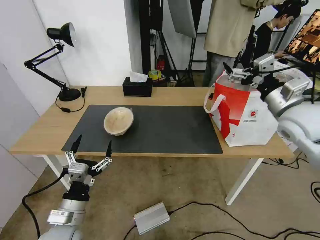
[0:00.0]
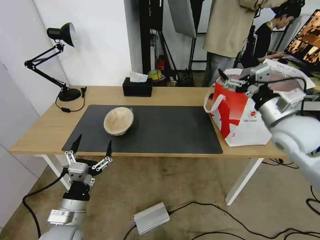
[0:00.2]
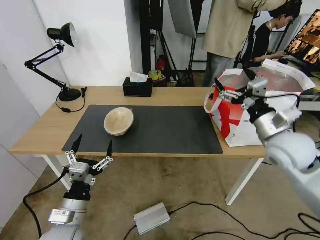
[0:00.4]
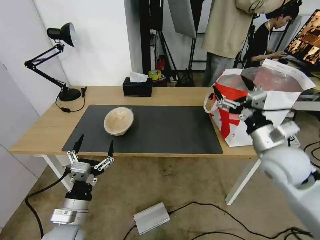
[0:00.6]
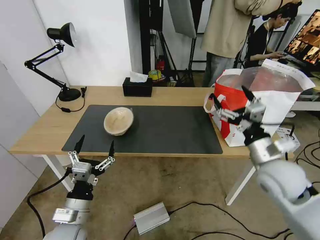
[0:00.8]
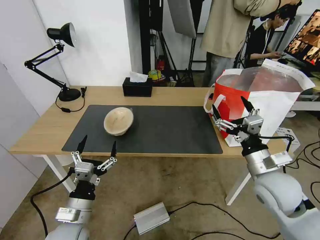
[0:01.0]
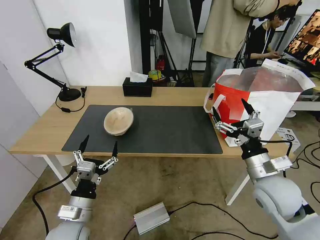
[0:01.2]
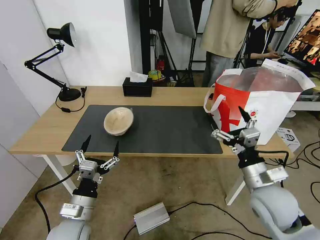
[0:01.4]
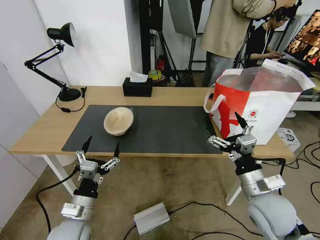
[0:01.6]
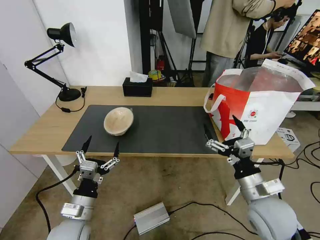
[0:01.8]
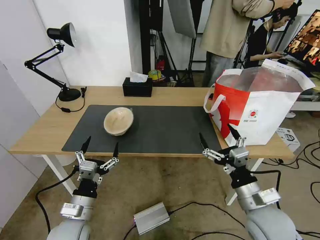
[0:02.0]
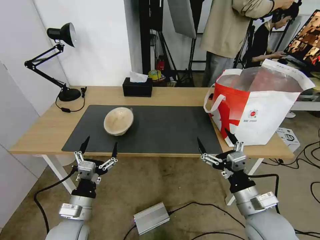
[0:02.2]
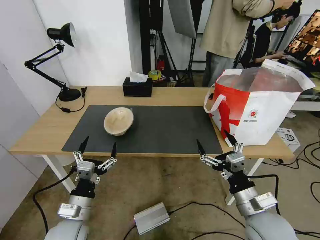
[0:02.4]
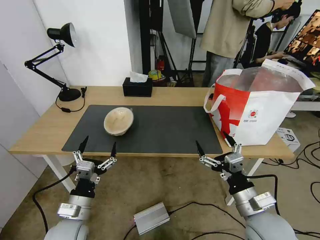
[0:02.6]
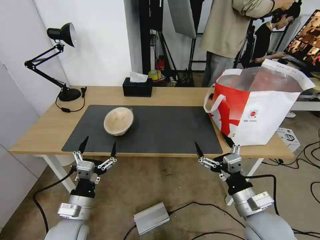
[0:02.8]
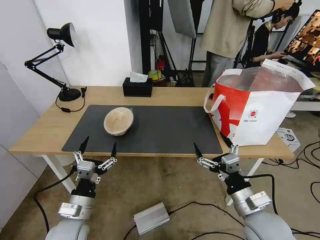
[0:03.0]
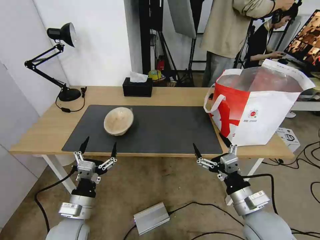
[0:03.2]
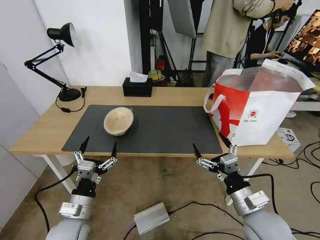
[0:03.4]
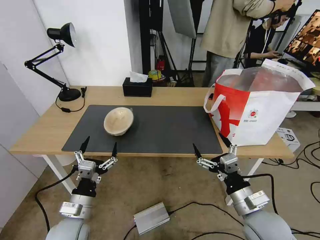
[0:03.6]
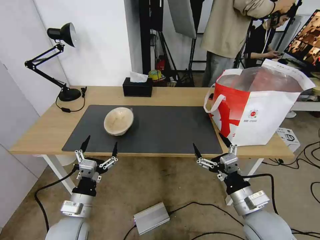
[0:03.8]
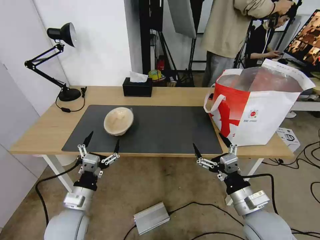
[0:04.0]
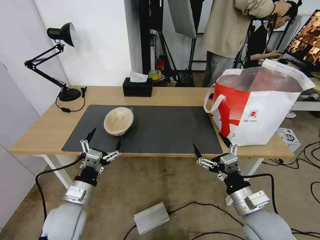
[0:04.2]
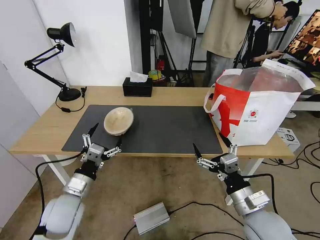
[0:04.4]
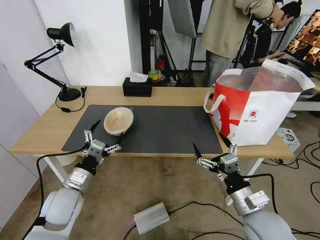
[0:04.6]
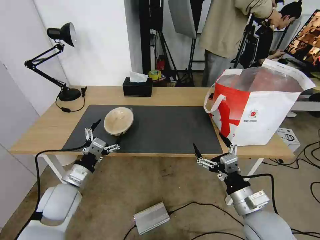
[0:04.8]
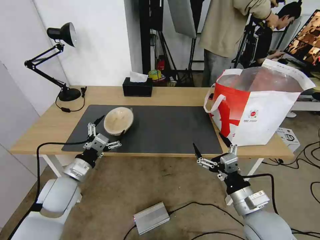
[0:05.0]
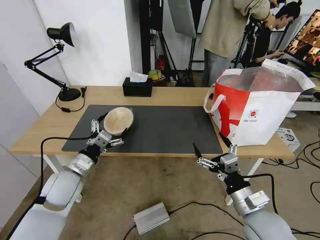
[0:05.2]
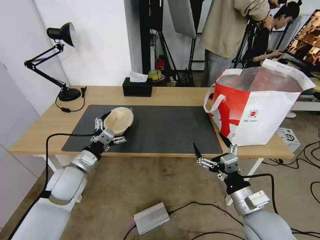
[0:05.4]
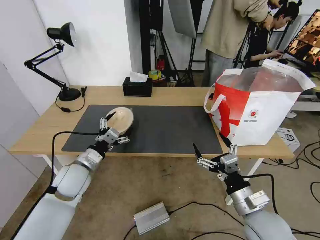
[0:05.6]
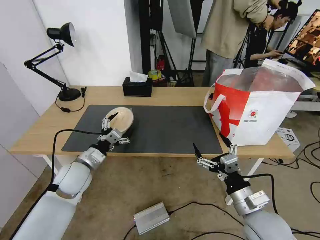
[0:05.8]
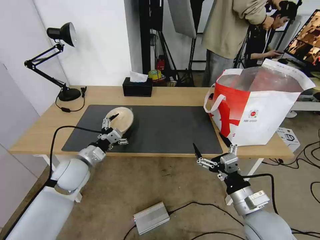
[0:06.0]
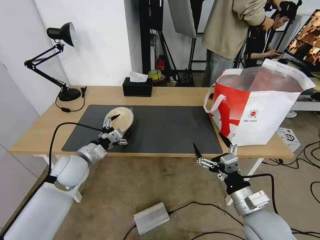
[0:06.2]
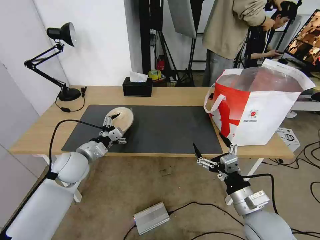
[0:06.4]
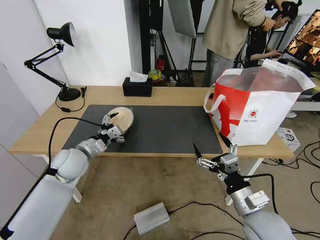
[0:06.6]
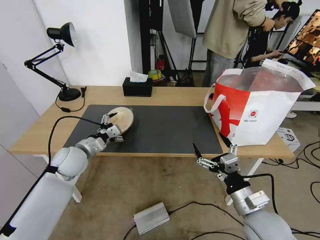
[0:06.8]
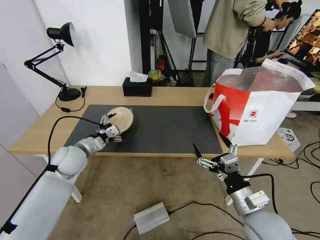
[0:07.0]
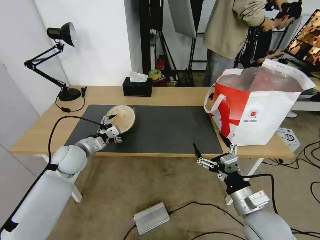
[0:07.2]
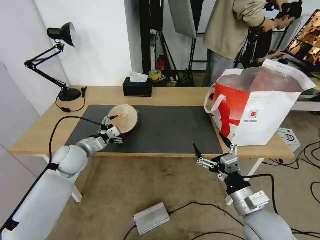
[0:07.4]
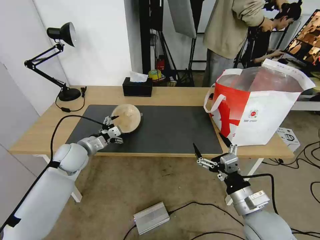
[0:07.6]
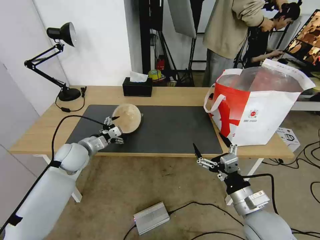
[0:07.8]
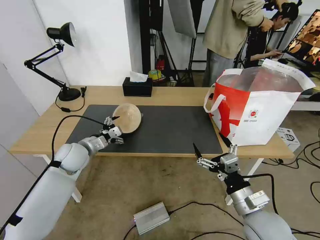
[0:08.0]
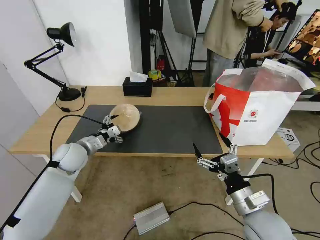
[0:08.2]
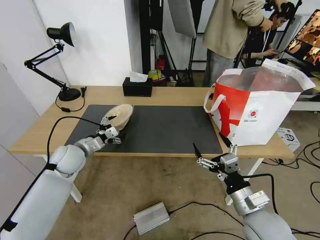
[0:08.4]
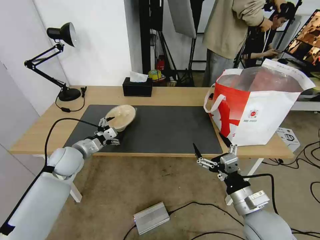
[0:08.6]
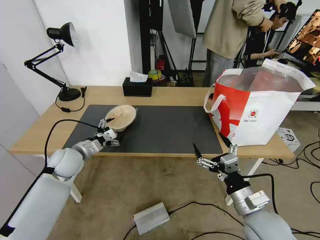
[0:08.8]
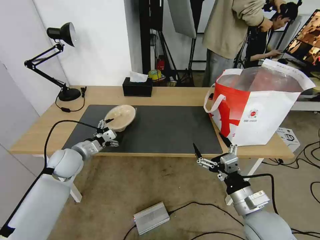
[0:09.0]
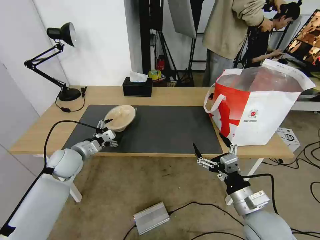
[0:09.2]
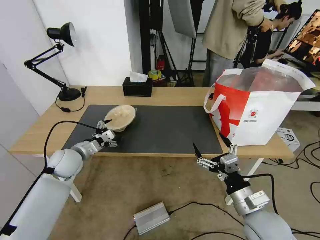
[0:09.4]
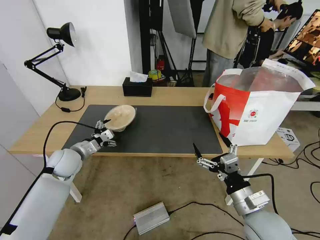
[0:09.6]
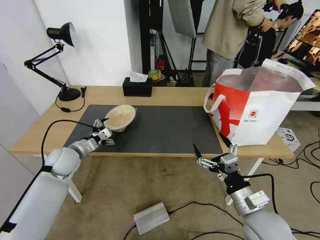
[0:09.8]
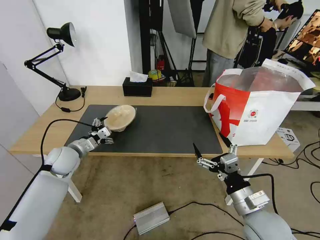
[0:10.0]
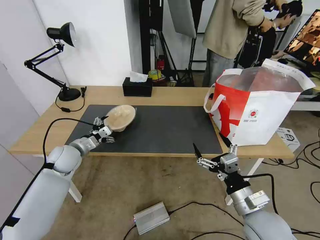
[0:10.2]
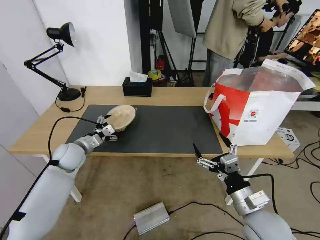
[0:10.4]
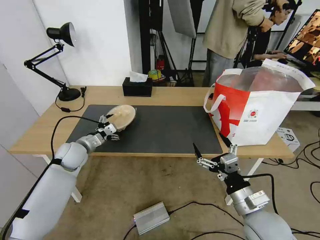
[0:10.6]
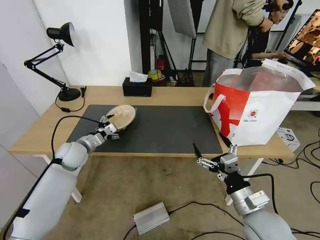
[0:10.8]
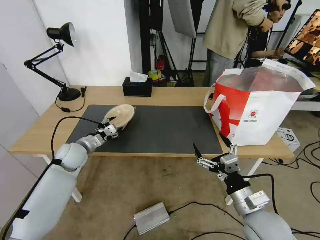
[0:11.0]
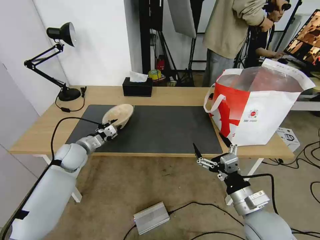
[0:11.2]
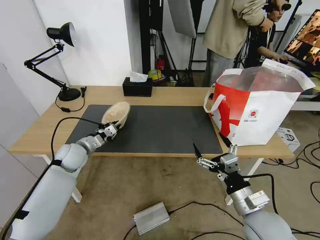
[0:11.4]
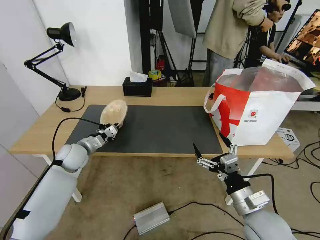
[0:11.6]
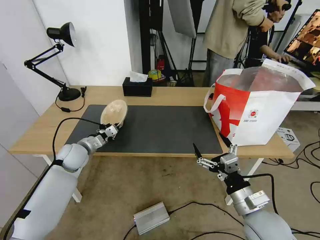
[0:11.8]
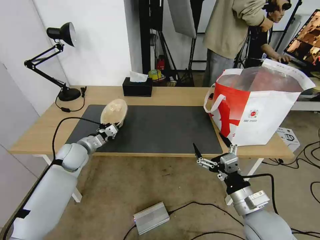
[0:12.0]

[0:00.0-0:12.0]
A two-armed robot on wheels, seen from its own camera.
Task of the whole recording: Pick up the trash from the table and place it into the takeout bag.
0:00.0 to 0:01.6: The right gripper is displaced downward, backward and to the left by some 25 cm.
0:01.6 to 0:03.0: The right gripper shifts by approximately 5 cm.
0:03.0 to 0:04.4: The left gripper heads forward, covering some 5 cm.
0:04.4 to 0:06.0: The left gripper goes some 10 cm forward.
0:06.0 to 0:07.6: The left gripper shifts about 5 cm forward.
0:07.6 to 0:10.4: There are only small adjustments of the grippers.
0:10.4 to 0:12.0: The left gripper closes.

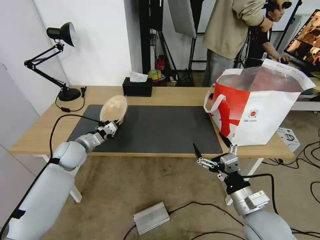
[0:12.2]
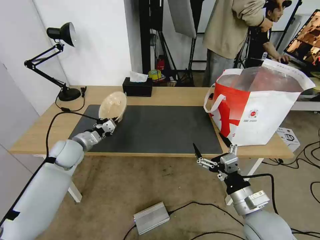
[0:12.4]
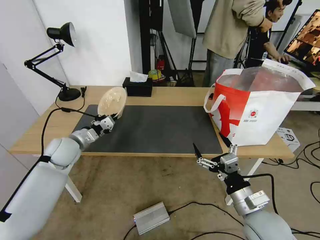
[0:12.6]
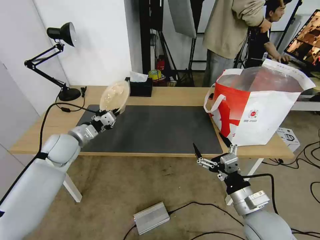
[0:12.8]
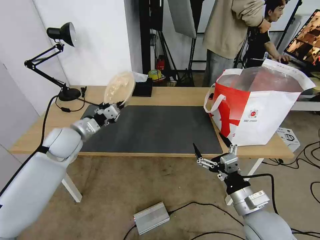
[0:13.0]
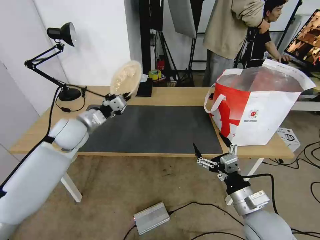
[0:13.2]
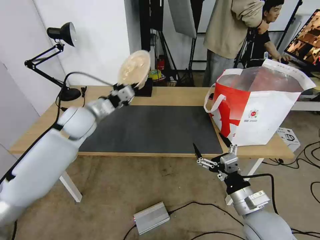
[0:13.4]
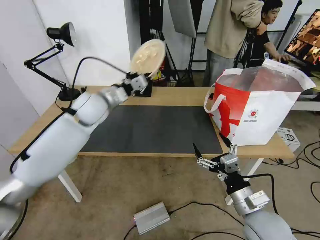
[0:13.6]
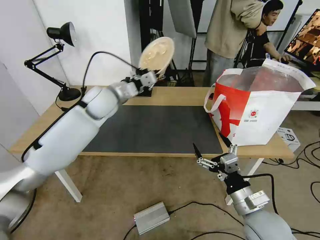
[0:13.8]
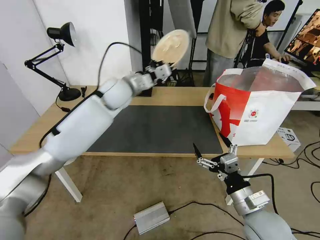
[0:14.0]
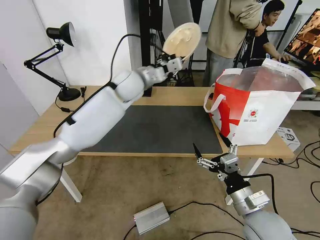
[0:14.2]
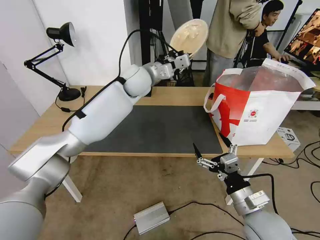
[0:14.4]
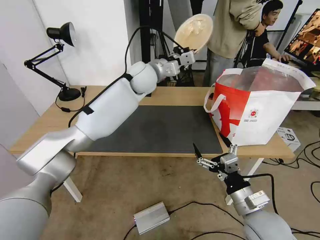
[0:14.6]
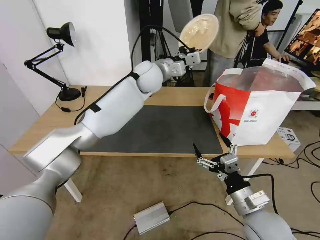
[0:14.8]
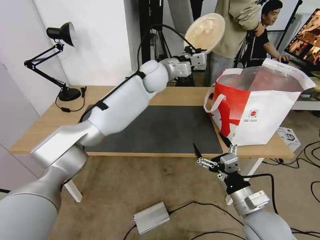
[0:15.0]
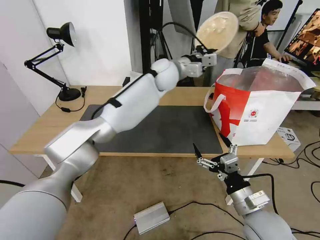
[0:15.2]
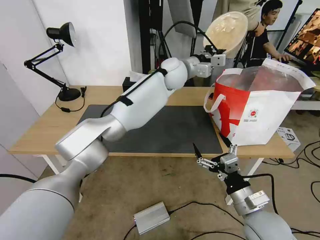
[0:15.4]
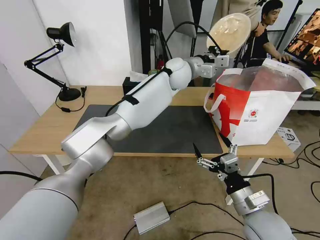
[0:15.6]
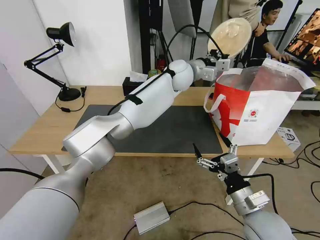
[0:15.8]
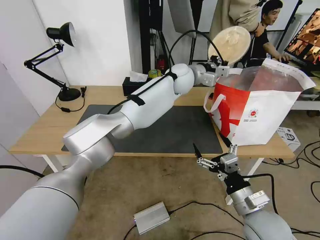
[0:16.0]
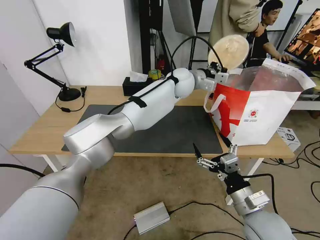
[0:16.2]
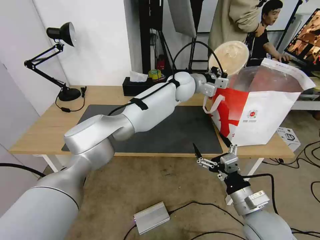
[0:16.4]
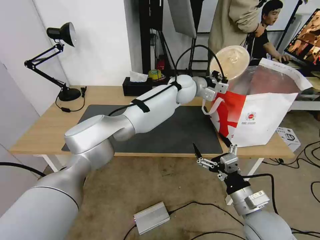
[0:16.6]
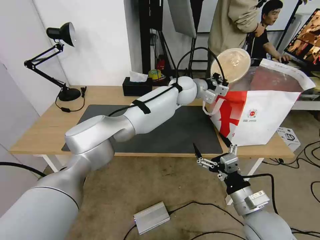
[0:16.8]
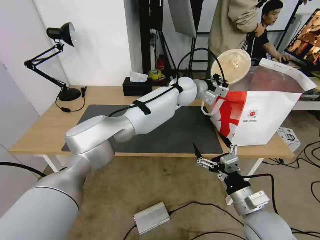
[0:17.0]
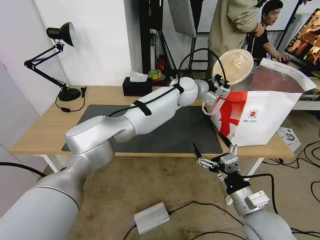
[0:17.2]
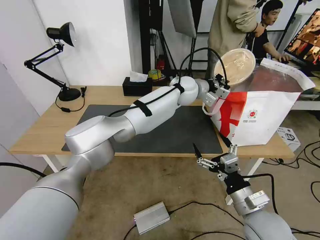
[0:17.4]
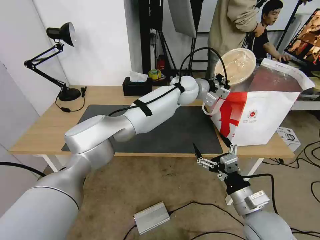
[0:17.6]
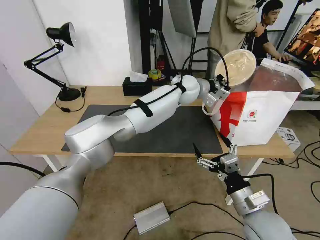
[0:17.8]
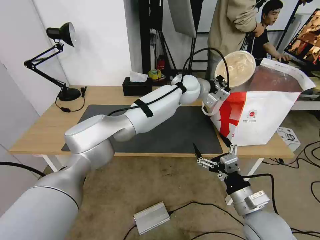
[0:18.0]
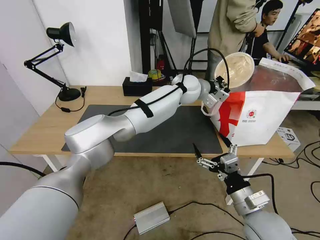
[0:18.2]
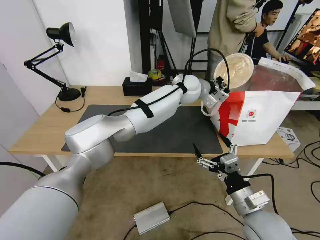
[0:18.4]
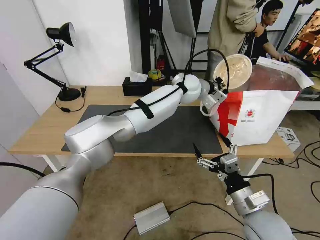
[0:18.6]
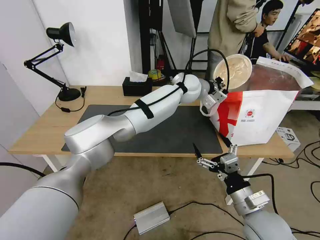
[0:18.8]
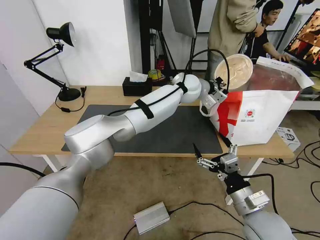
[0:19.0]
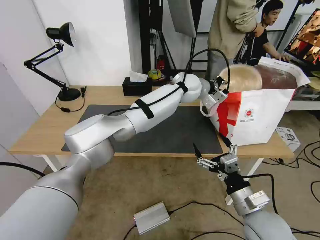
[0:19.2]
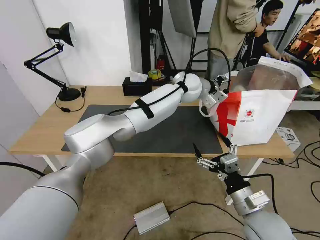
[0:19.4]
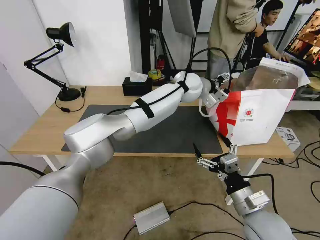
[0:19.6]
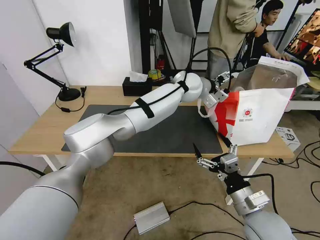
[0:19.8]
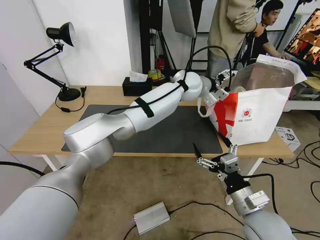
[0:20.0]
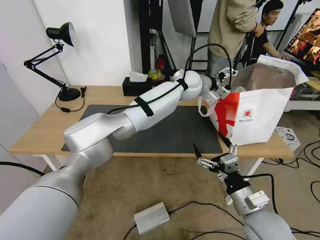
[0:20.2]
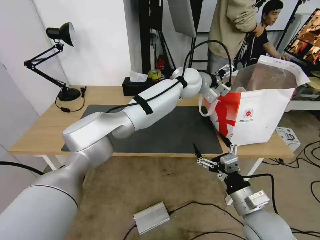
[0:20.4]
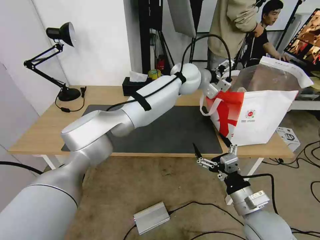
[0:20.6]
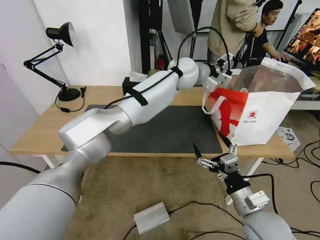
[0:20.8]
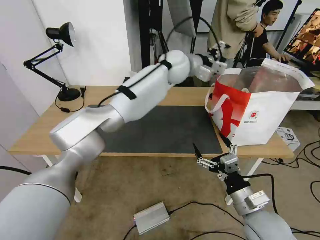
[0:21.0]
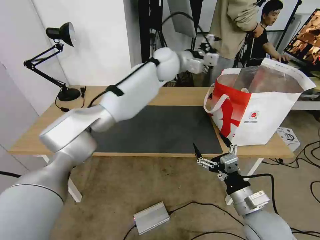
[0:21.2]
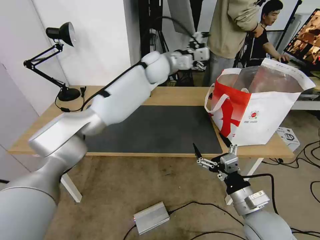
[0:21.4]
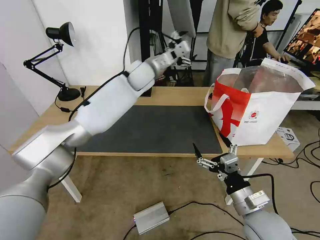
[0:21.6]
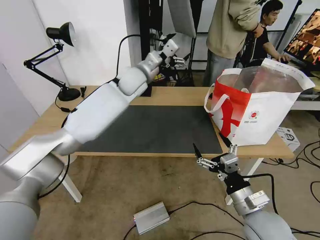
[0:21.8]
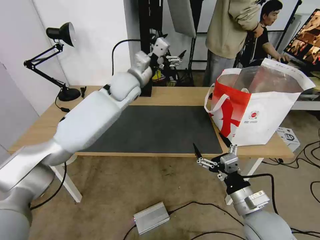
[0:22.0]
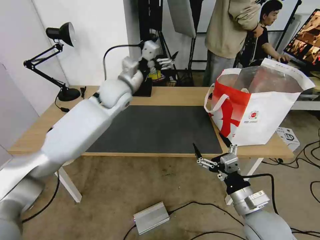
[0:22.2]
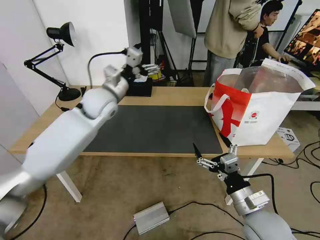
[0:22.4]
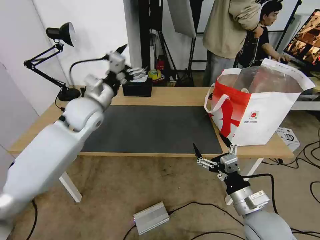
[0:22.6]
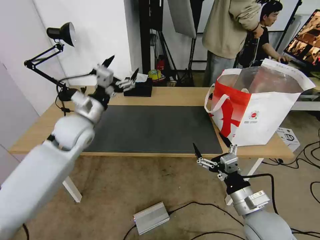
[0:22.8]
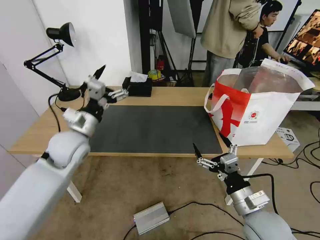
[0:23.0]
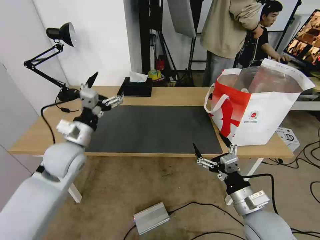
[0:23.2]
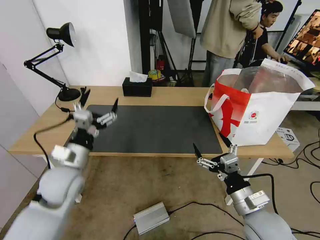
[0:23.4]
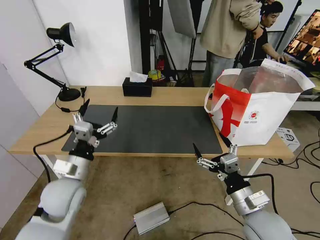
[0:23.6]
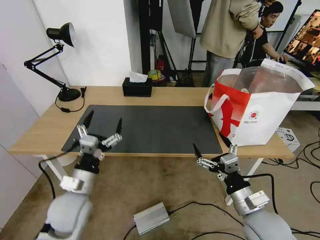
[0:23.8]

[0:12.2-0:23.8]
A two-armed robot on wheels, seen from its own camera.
Task of the whole recording: Pick up the trash from the table and place it into the takeout bag.
0:12.2 to 0:13.6: The left gripper is displaced upward and to the right by some 20 cm.
0:13.6 to 0:15.0: The left gripper is displaced to the right and forward by roughly 20 cm.
0:15.0 to 0:16.6: The left gripper travels to the right and downward by roughly 10 cm.
0:16.6 to 0:18.0: The grippers move only a little.
0:18.0 to 0:19.4: The left gripper opens.
0:19.4 to 0:21.0: The left gripper heads upward, covering about 5 cm.
0:21.0 to 0:22.4: The left gripper shifts about 25 cm to the left and backward.
0:22.4 to 0:23.8: The left gripper goes some 30 cm backward and downward.
